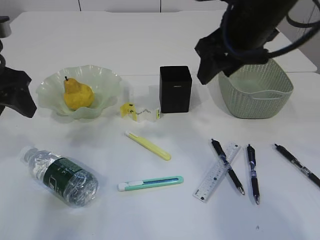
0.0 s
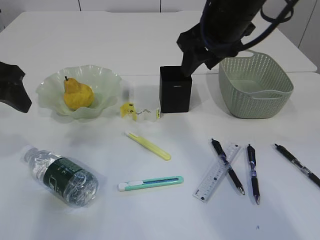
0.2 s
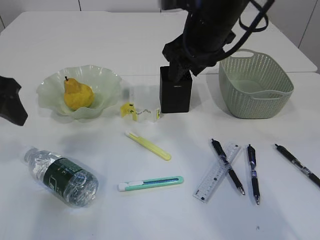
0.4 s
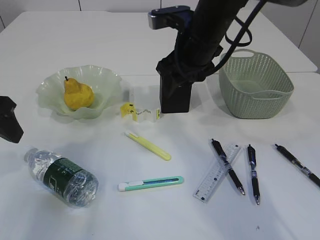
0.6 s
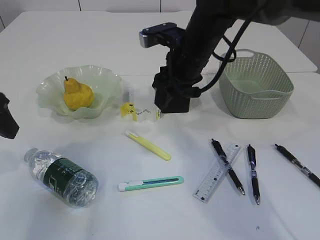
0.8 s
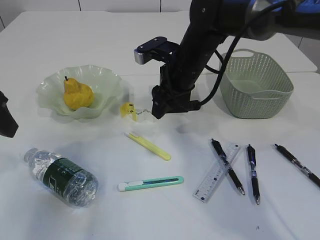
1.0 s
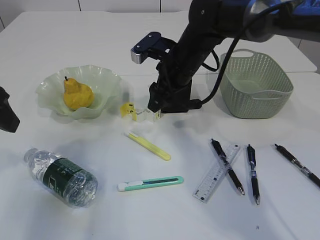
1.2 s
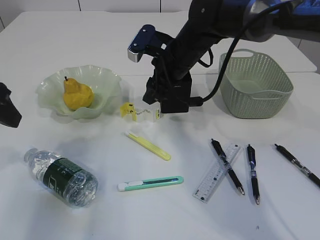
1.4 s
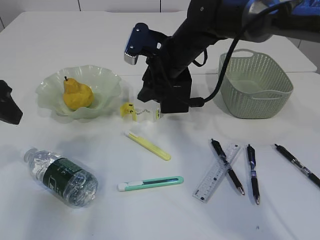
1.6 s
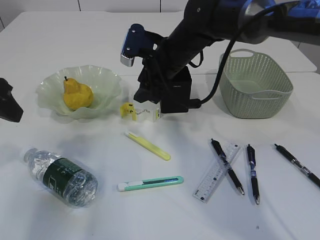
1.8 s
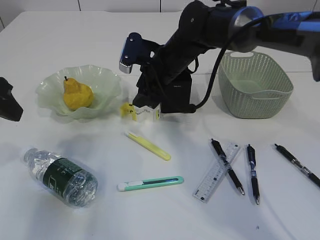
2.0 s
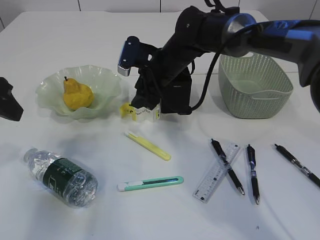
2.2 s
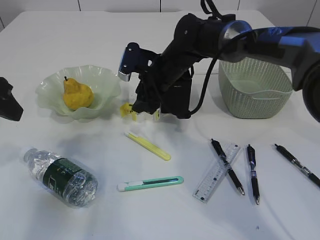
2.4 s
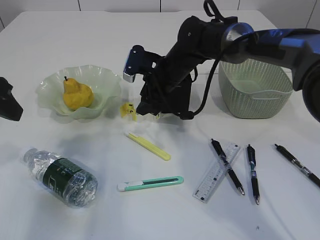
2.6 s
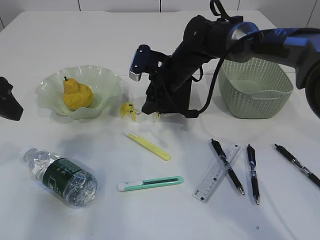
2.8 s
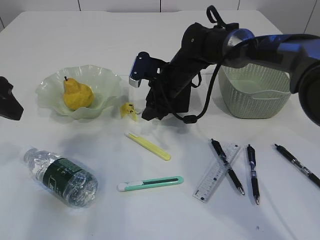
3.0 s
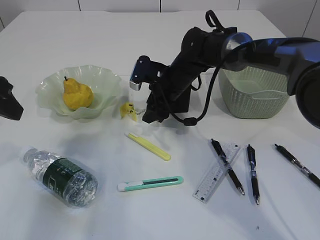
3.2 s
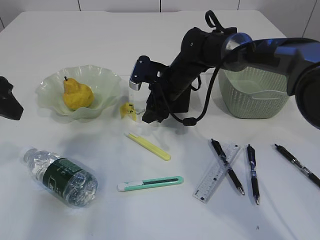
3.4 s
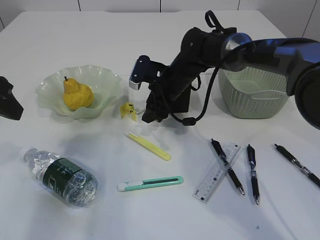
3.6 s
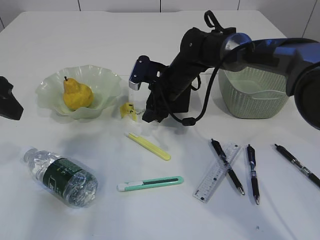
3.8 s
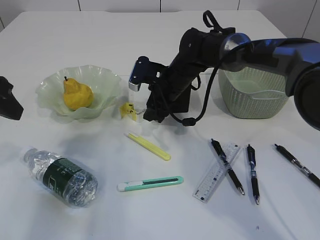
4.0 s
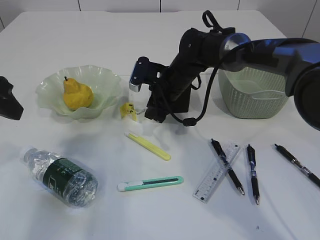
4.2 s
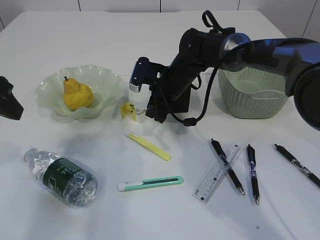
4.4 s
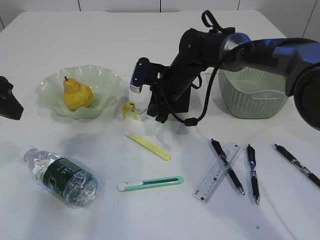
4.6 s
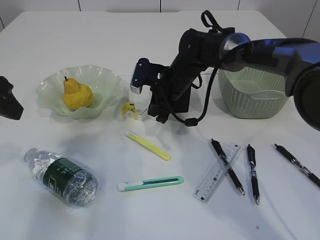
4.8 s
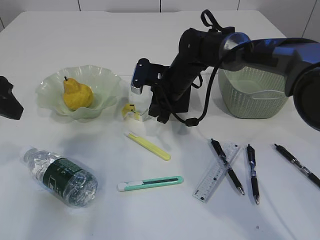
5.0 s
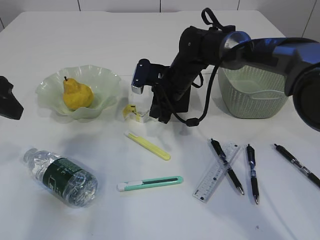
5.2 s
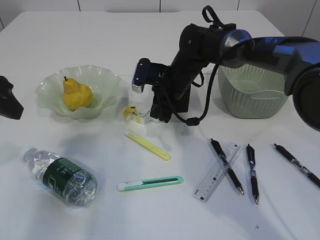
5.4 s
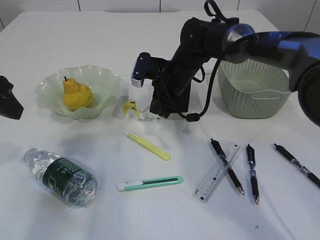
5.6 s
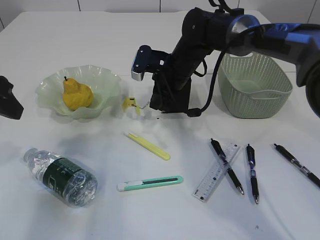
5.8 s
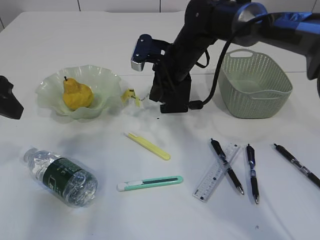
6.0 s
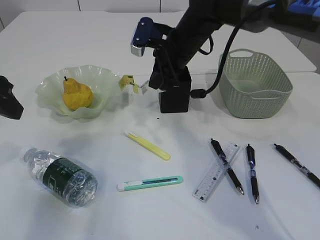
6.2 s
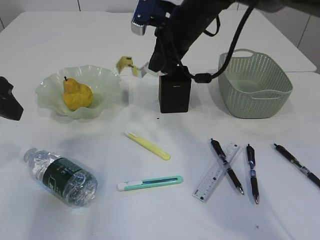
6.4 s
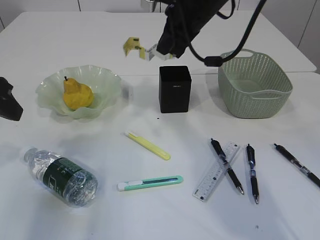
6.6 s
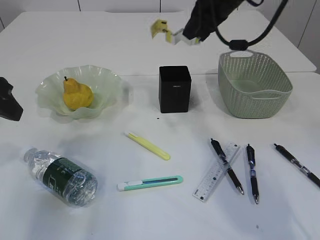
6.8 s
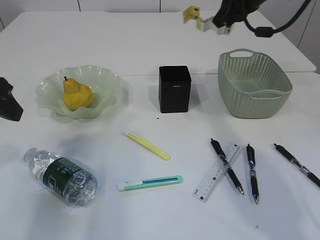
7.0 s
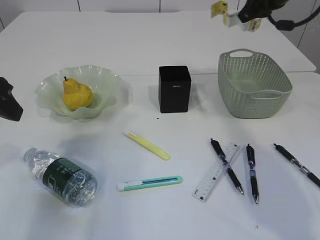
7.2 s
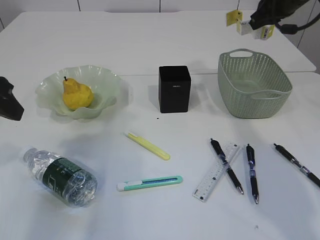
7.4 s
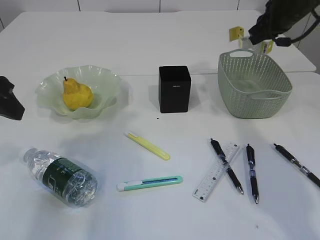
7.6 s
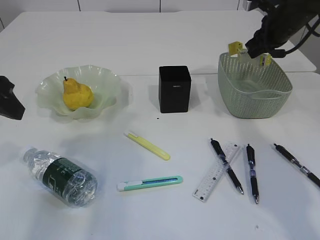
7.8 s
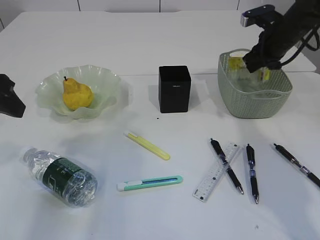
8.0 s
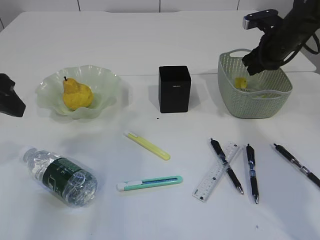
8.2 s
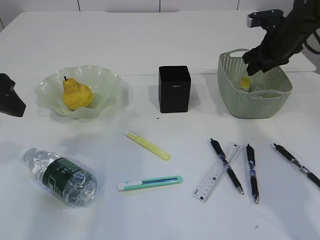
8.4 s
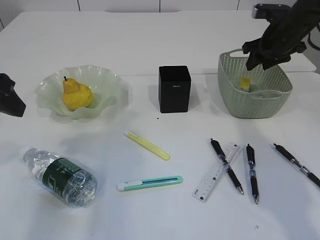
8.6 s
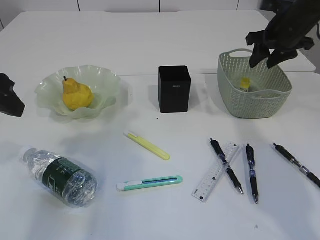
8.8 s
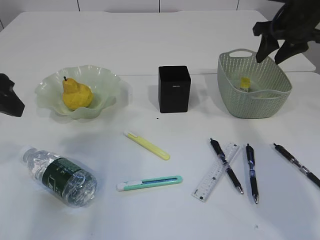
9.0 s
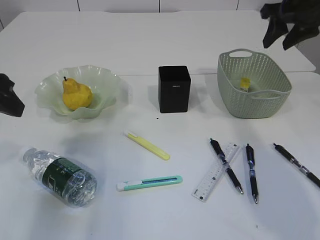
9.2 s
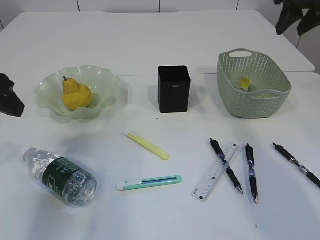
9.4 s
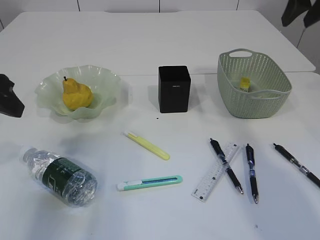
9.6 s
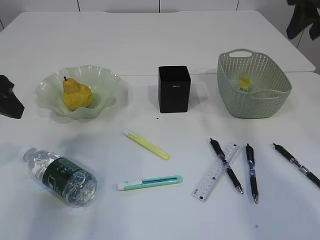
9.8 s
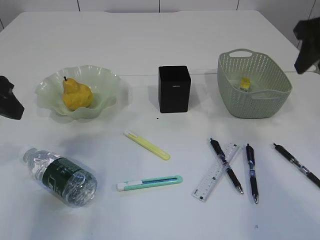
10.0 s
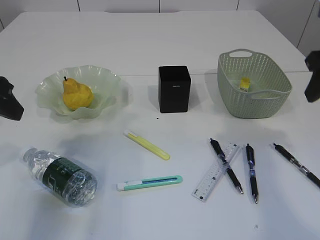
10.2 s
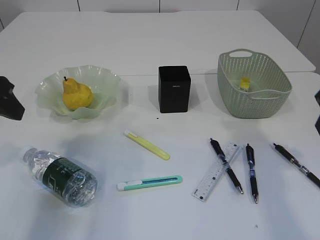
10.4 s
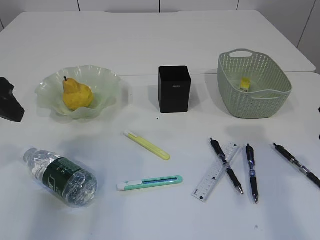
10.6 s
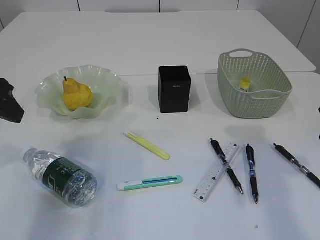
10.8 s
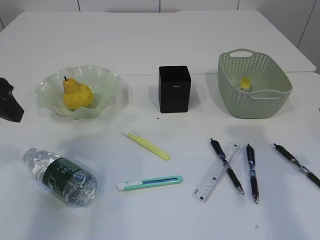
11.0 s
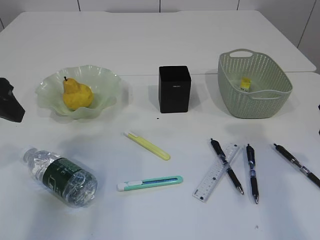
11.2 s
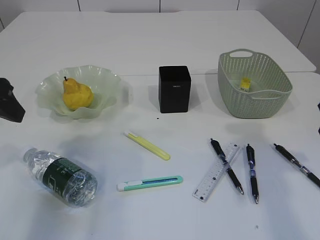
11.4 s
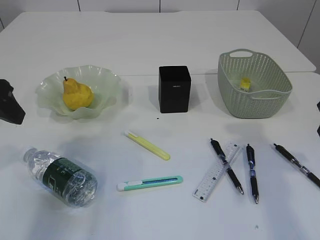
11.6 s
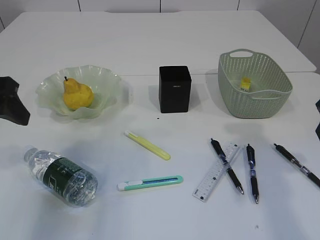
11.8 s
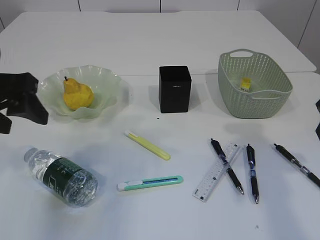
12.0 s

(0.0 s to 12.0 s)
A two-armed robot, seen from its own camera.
Step, 0.0 s - 5.8 s: Pick up the waste paper.
Step, 6.0 s - 8.8 s: Place the waste paper in the basket.
0.0 s - 1.6 s: The right gripper is displaced downward, forward and to the left by approximately 15 cm.
1.6 s - 3.0 s: The right gripper is displaced downward by roughly 5 cm.
3.0 s - 4.4 s: The right gripper closes up.
4.4 s - 6.0 s: The right gripper heads upward, covering approximately 5 cm.
6.0 s - 7.6 s: The right gripper moves to the right, about 20 cm.
7.6 s - 9.0 s: The right gripper opens.
9.0 s - 10.4 s: The right gripper travels backward by about 20 cm.
10.4 s - 12.0 s: The grippers move only a little.

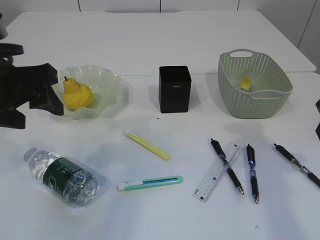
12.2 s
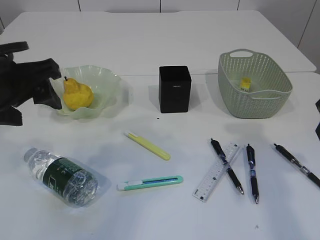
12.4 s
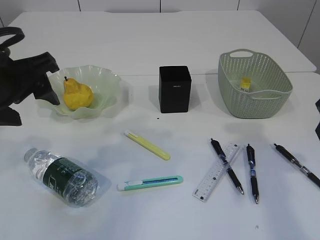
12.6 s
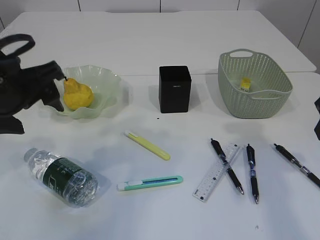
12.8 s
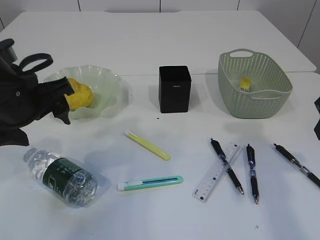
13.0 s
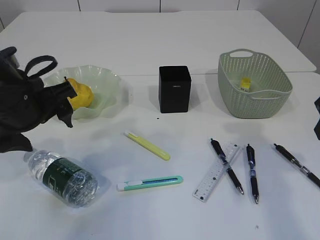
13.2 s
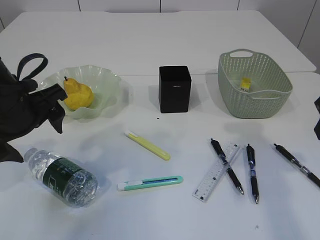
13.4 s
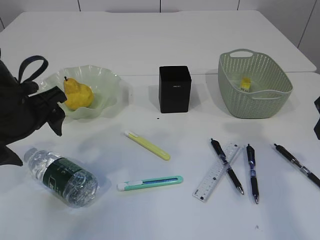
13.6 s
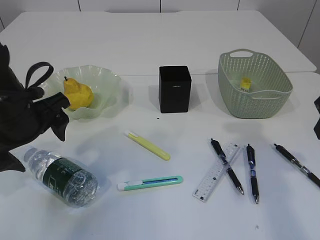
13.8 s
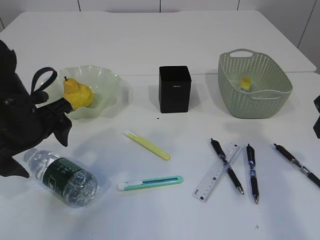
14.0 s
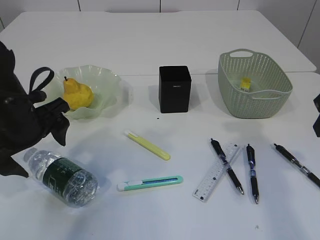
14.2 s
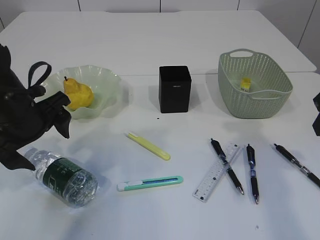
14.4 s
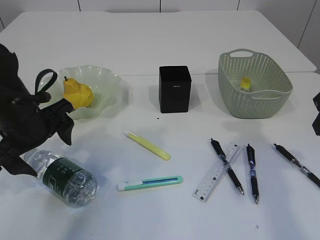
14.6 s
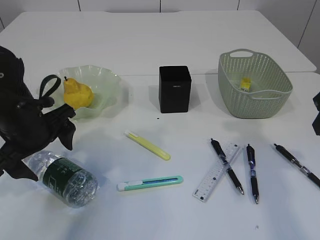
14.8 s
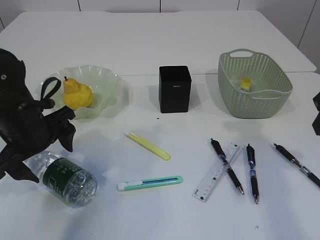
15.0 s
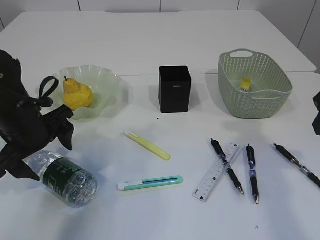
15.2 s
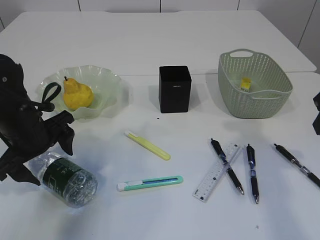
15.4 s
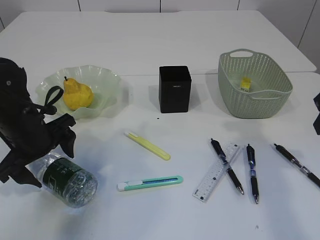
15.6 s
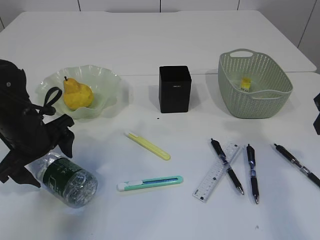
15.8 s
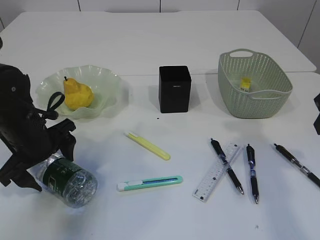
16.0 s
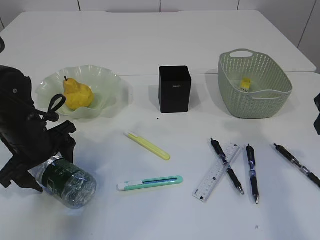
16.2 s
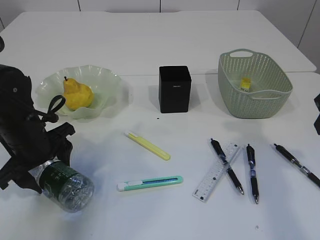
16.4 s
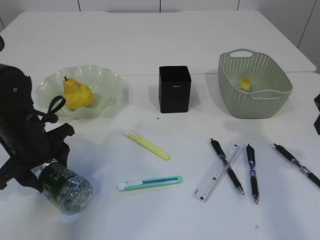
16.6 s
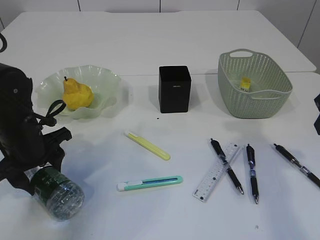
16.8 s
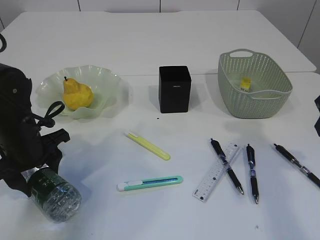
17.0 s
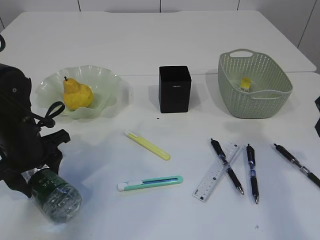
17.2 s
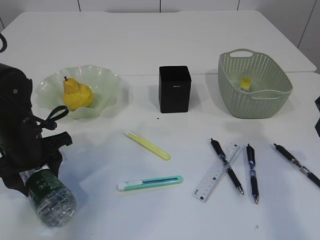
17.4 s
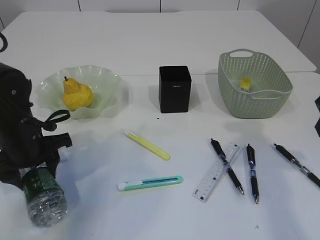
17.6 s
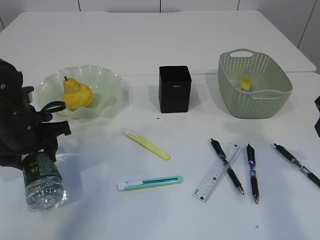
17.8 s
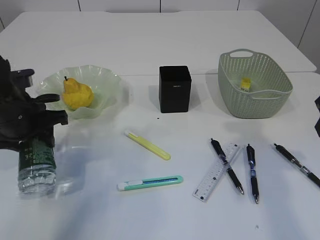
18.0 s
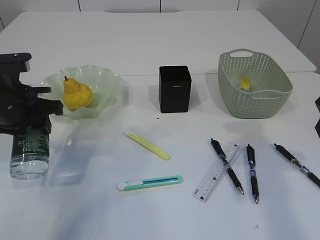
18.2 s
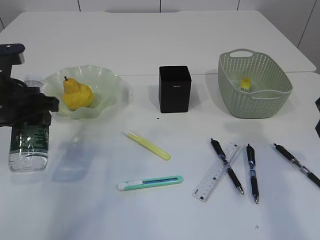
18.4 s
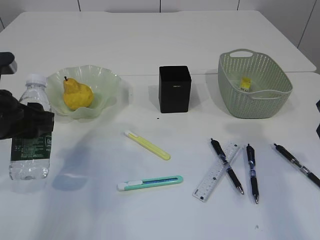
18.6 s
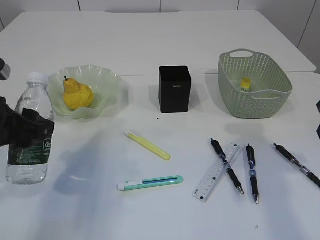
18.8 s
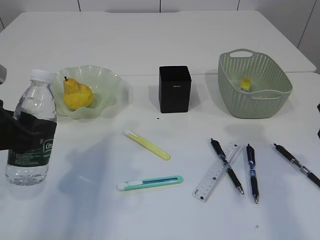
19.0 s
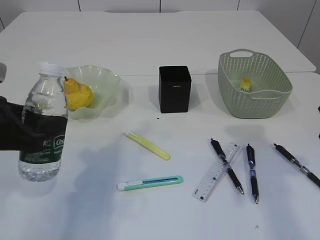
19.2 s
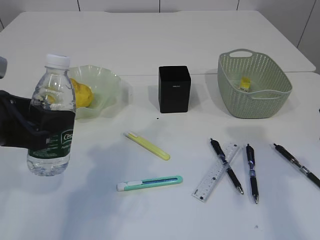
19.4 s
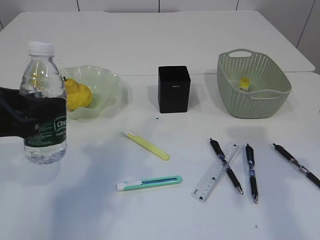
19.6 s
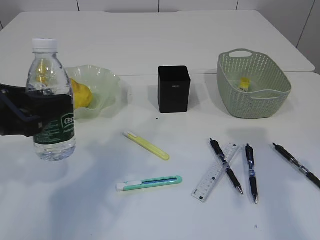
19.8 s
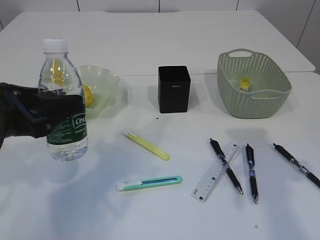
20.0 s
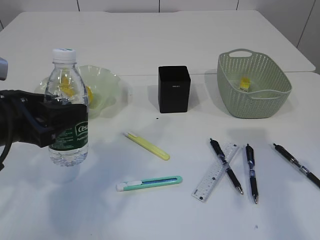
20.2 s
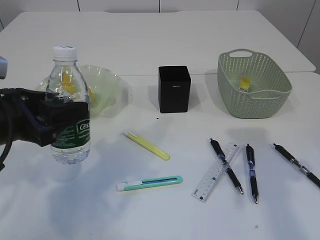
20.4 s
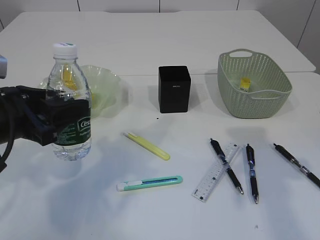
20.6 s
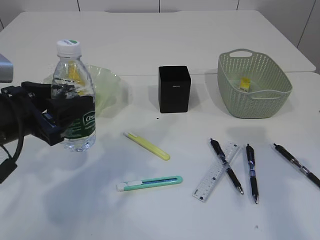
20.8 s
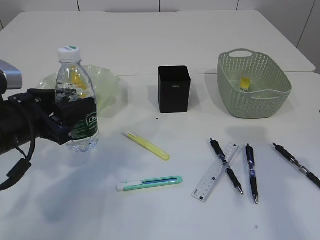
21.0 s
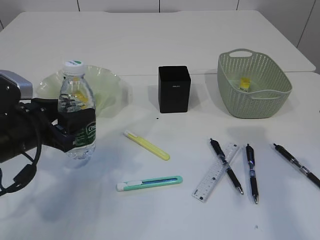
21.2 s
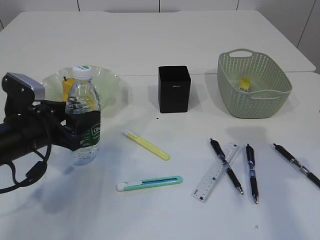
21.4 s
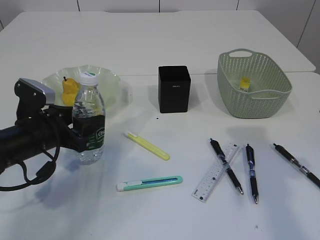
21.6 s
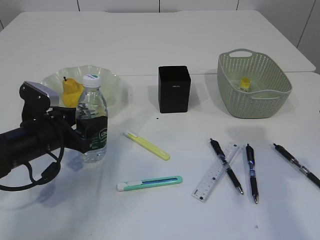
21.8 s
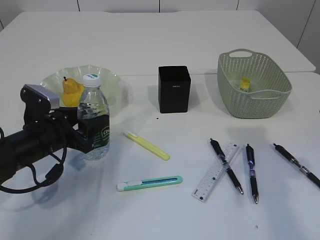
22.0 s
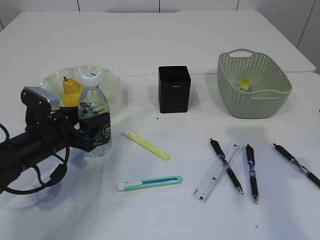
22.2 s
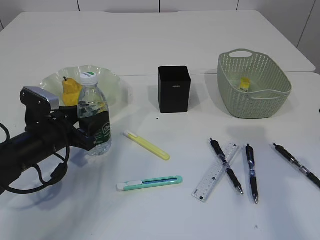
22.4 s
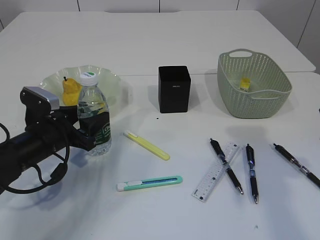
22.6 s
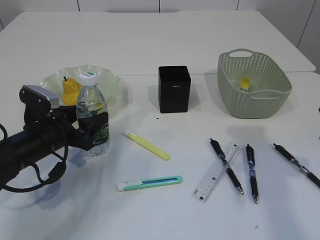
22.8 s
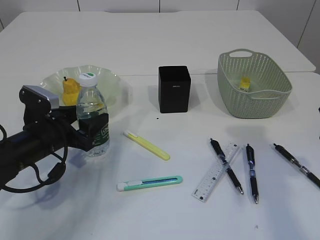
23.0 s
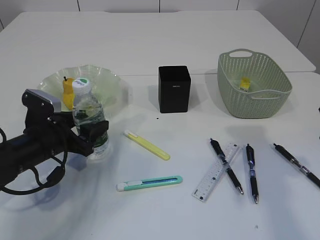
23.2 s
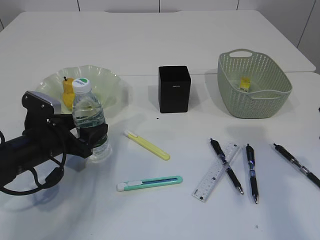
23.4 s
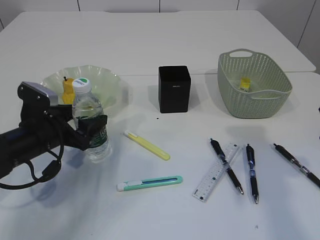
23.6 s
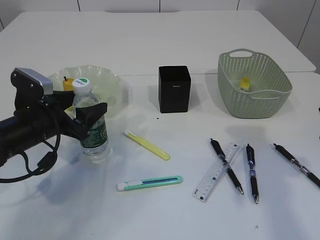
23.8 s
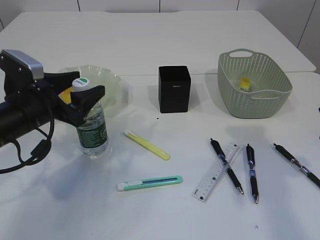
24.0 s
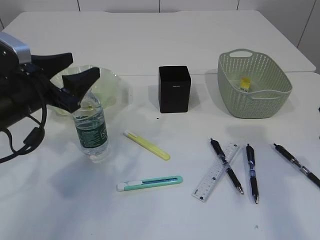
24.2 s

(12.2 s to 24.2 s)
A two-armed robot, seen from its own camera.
Step, 12.2 s - 17.8 s: Pick up the bottle with the left arm.
Step, 18.0 s - 24.2 s: Place the bottle.
12.2 s - 13.8 s: The left gripper moves downward, some 5 cm.
13.8 s - 15.2 s: The left gripper changes place by about 5 cm.
15.2 s - 16.6 s: The left gripper closes its fingers.
16.6 s - 18.2 s: The left gripper goes some 5 cm upward.
18.2 s - 19.8 s: The left gripper moves backward, about 10 cm.
19.8 s - 21.2 s: The left gripper shifts some 10 cm downward.
21.2 s - 22.6 s: The left gripper heads downward, covering roughly 5 cm.
22.6 s - 24.2 s: The left gripper travels upward by roughly 10 cm, and opens up.
